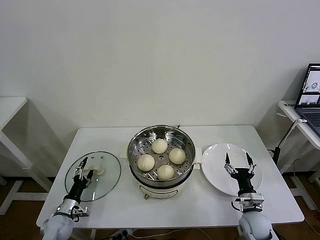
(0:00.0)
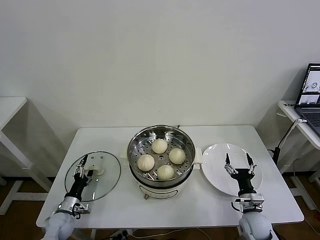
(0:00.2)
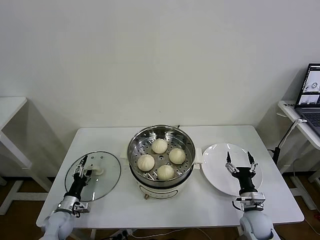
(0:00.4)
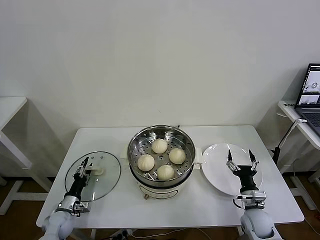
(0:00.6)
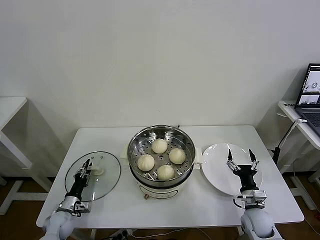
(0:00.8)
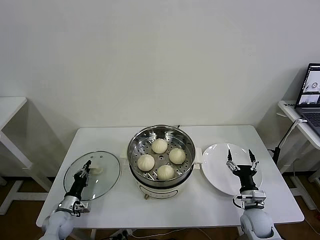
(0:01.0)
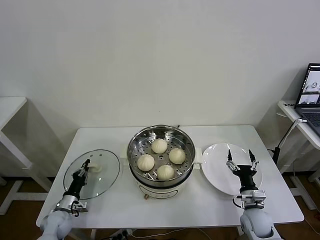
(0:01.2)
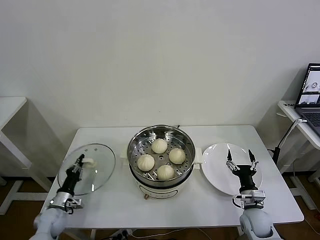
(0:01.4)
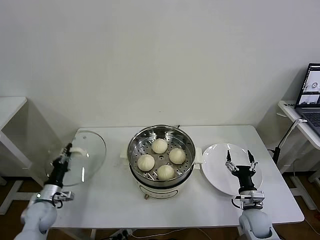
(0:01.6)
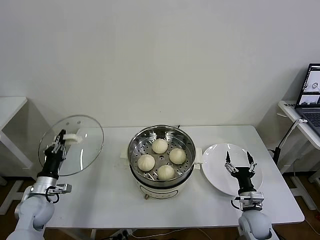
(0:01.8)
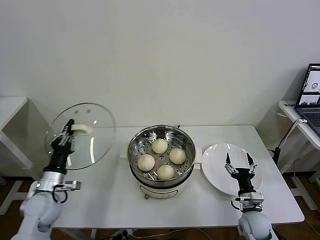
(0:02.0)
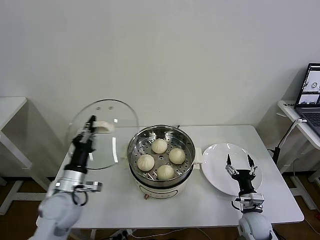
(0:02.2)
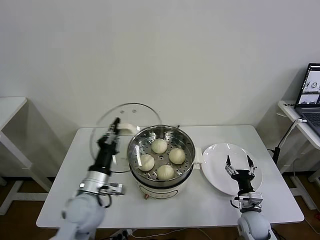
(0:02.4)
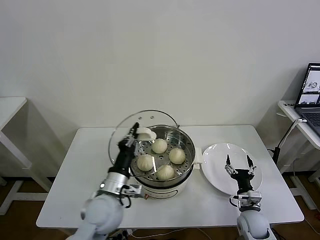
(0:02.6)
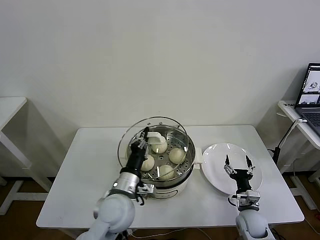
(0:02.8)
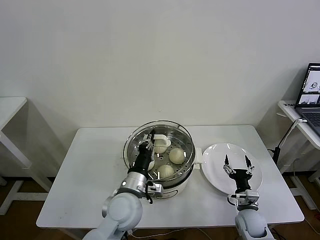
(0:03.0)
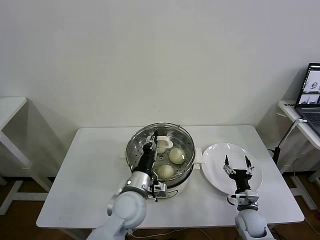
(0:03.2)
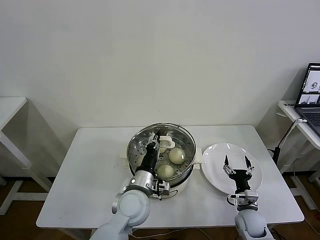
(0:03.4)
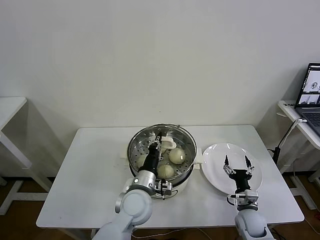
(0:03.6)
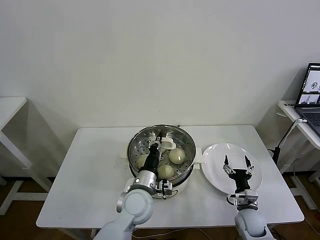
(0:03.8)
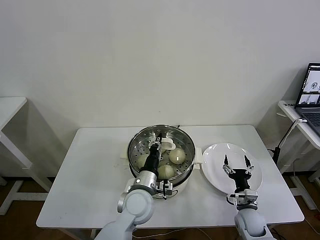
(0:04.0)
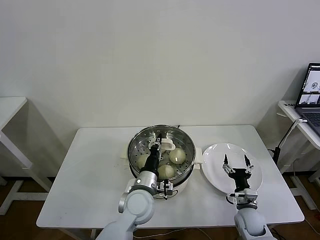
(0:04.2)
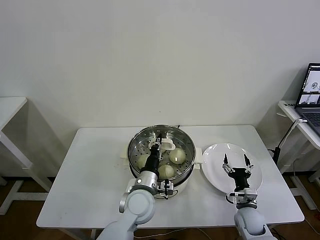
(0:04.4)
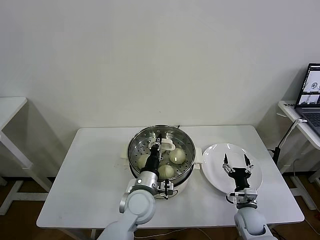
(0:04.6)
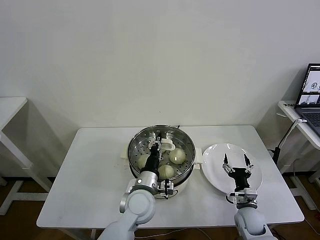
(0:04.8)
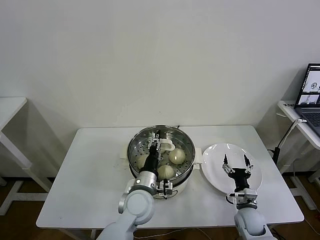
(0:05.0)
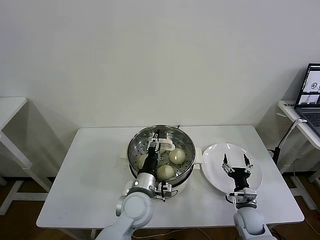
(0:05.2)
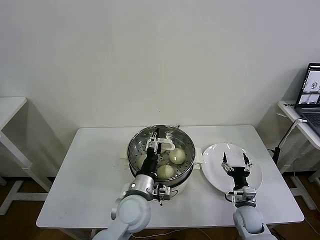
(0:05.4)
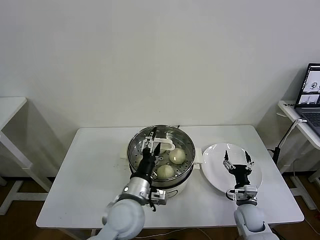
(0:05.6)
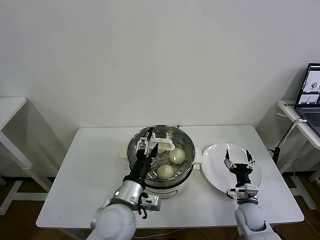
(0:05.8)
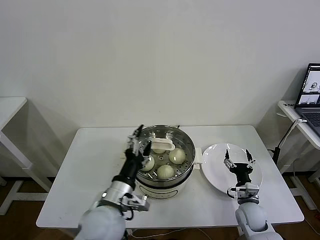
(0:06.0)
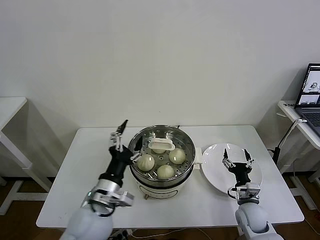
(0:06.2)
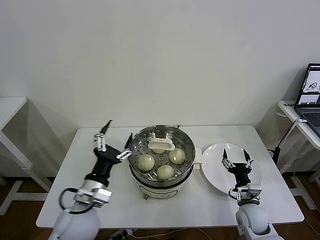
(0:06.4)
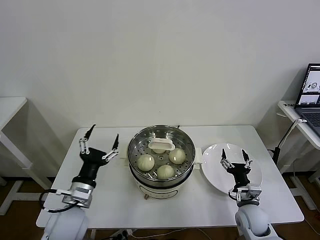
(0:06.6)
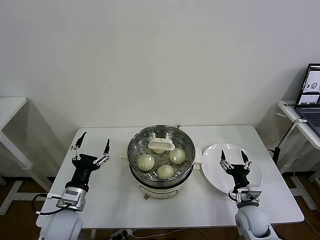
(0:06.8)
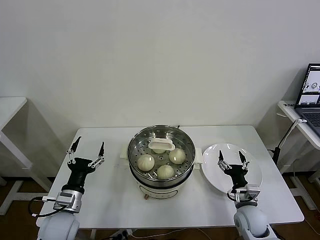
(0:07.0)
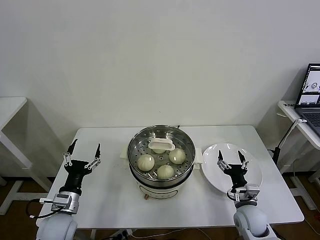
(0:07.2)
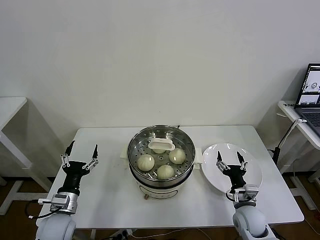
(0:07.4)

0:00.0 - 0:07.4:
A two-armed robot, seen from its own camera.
Task of the whole recording: take steamed baozi put them in steamer then cover it.
Step, 0:01.2 - 0:04.8: Place the pot lid on the steamer with left gripper.
0:00.0 - 0:01.4: The left gripper closes up.
0:01.4 - 0:03.0: The left gripper shifts about 35 cm to the right and upward.
0:03.0 - 0:04.4: The left gripper moves approximately 5 cm.
0:04.4 - 0:06.0: The left gripper travels upward, backward and to the left by about 10 cm, and opens.
0:06.0 - 0:07.4: The left gripper goes roughly 20 cm to the left and downward.

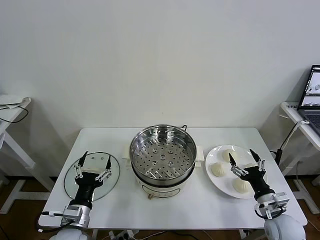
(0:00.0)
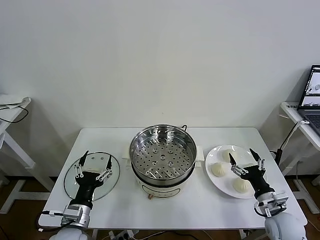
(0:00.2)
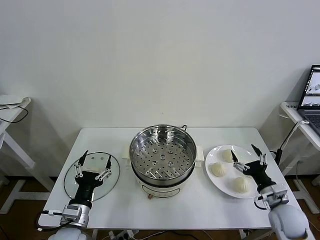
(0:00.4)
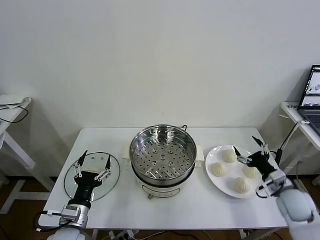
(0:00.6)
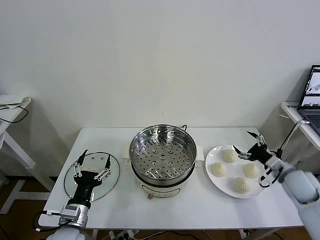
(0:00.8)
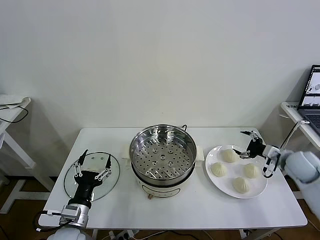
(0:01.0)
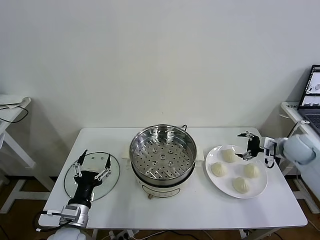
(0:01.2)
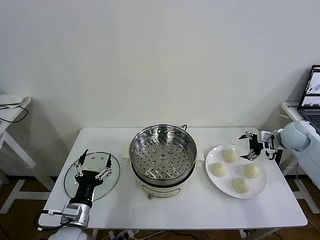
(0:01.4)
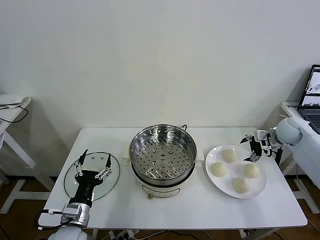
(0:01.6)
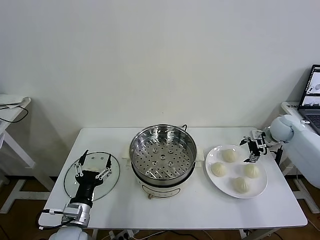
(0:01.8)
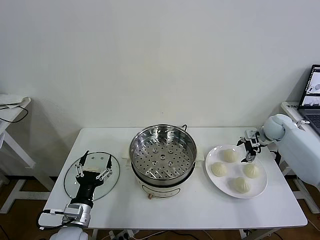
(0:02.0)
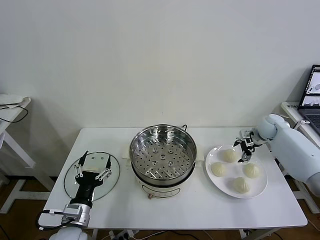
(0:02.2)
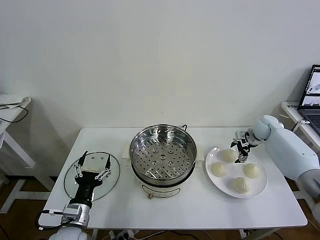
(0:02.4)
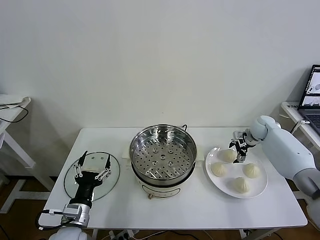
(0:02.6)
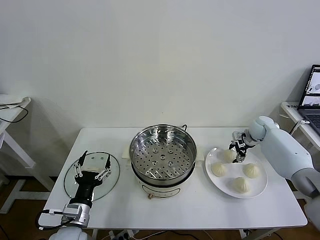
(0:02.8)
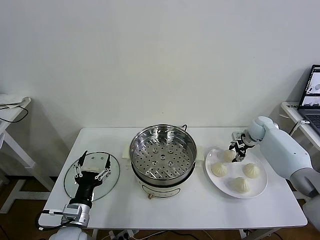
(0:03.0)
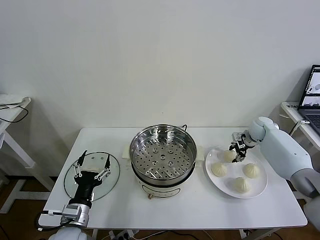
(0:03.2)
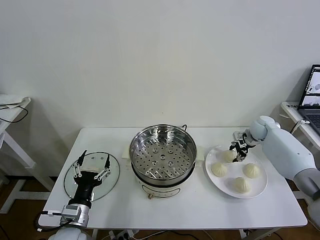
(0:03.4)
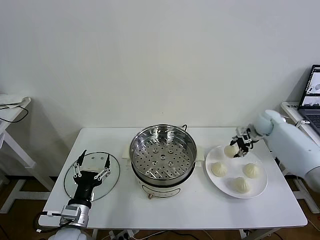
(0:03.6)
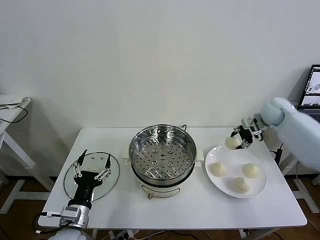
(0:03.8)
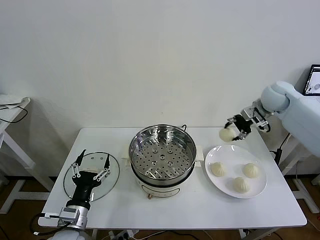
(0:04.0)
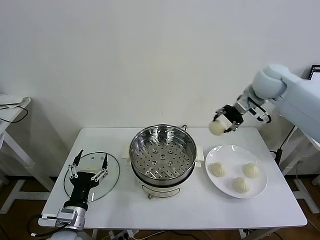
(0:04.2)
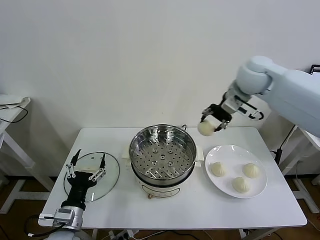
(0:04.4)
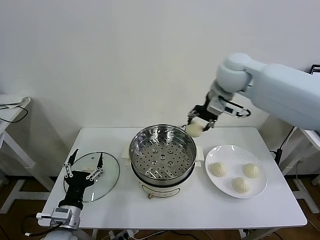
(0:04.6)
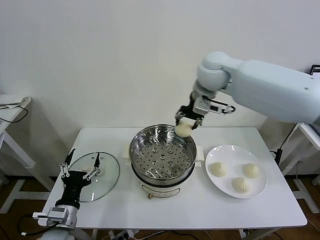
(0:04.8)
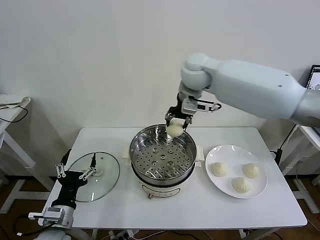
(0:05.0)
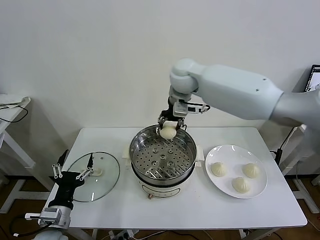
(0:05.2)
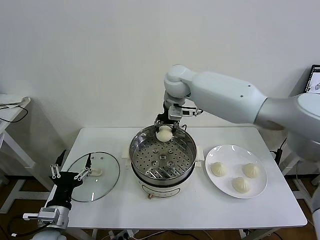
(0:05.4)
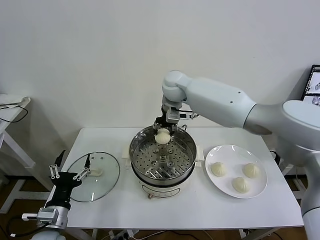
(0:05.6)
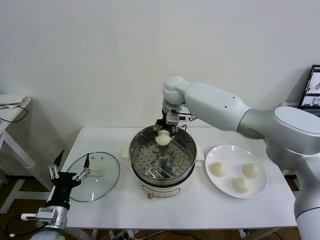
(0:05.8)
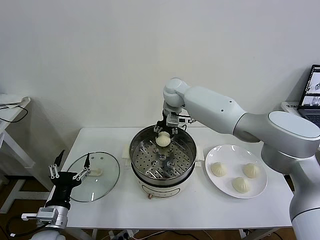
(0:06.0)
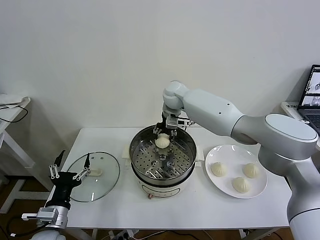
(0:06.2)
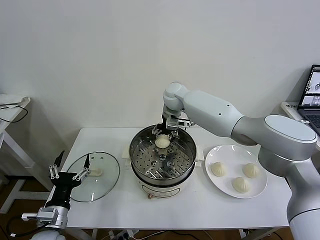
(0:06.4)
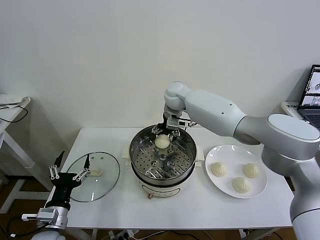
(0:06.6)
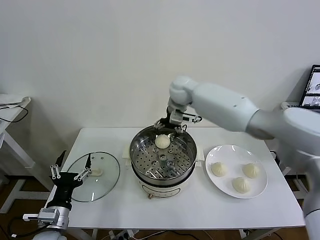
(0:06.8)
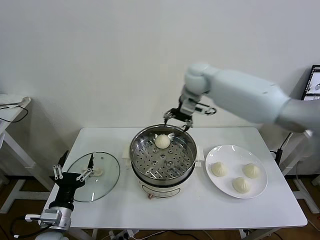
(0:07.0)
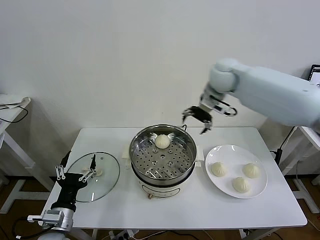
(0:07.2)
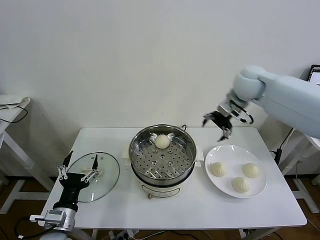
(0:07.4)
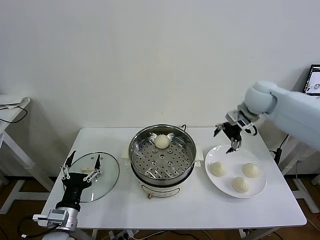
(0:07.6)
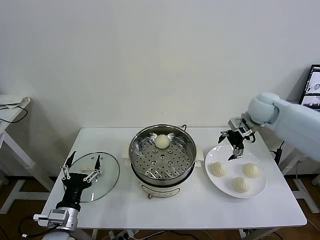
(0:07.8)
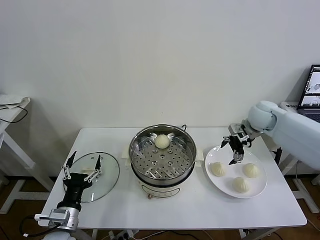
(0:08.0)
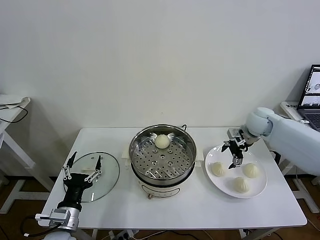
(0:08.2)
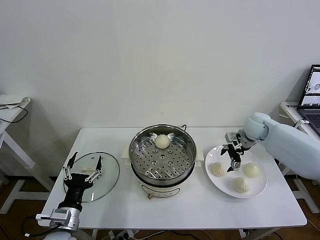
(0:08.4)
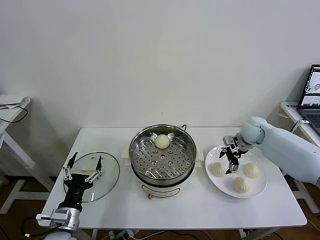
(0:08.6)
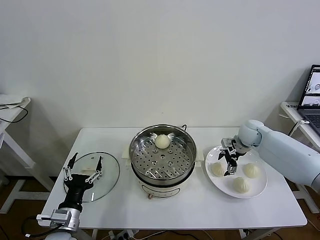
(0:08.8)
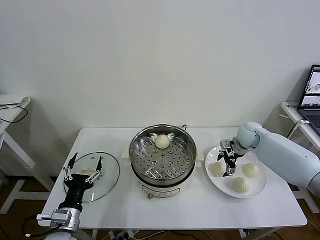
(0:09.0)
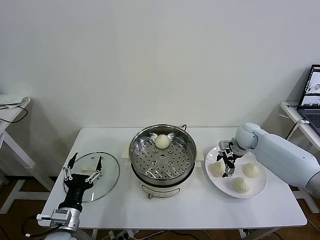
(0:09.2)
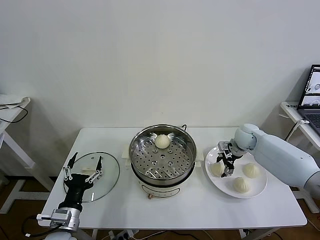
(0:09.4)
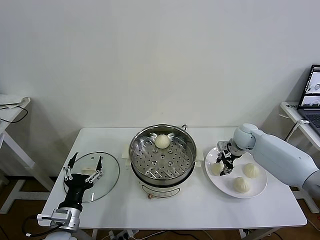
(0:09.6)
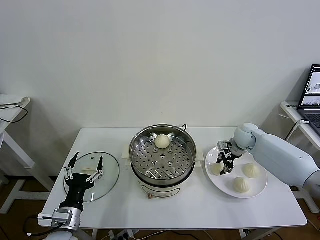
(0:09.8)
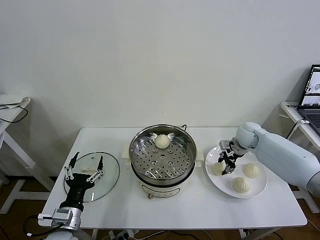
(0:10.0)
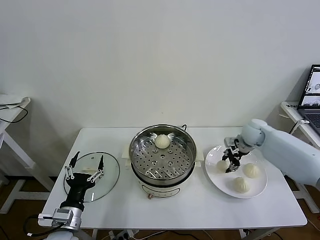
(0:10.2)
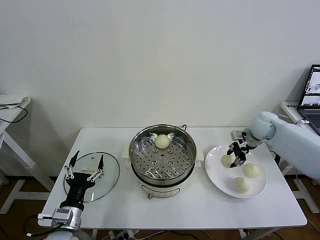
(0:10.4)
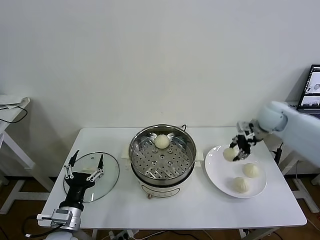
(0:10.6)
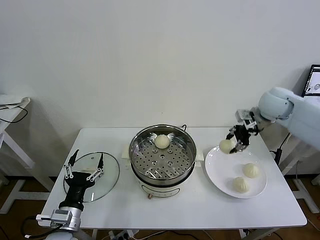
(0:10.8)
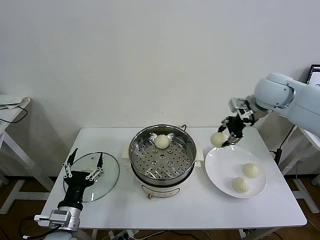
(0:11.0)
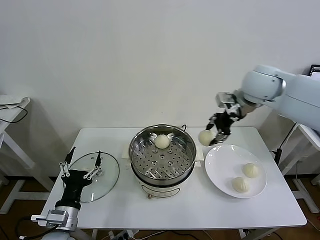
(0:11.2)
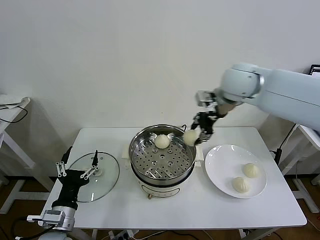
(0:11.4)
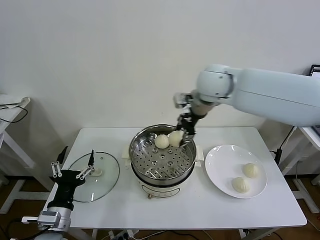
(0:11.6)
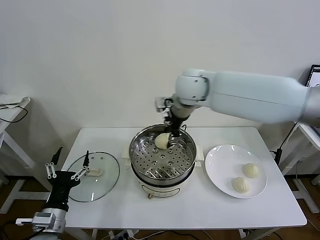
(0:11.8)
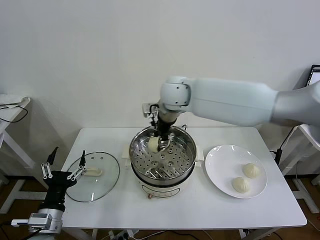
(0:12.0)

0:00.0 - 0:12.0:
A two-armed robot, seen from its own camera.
Task of the whole recording: take steamed baozi put them in steamer then cover it.
Step, 0:00.0 - 0:03.0: Grasp the baozi in the plate with right gripper.
Step, 0:03.2 - 0:06.6: Place the baozi on the steamer with right gripper.
Step, 0:06.8 - 0:09.6: Grasp the baozi in the plate with right gripper.
0:01.6 - 0:03.0: The right gripper travels downward and forward by some 10 cm, and closes its fingers.
0:03.0 - 0:04.4: The right gripper travels upward and to the left by some 35 cm.
0:04.4 - 0:06.0: The right gripper travels to the left, downward and forward by some 25 cm.
0:06.0 - 0:07.6: The right gripper heads to the right, covering about 25 cm, and opens.
0:07.6 - 0:09.0: The right gripper heads downward, covering some 15 cm.
0:09.0 - 0:10.4: The right gripper goes about 10 cm upward, and closes.
0:10.4 - 0:12.0: The right gripper moves to the left, about 35 cm.

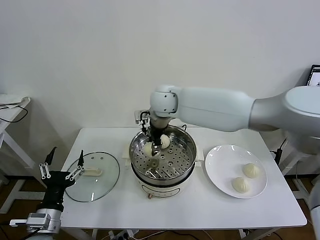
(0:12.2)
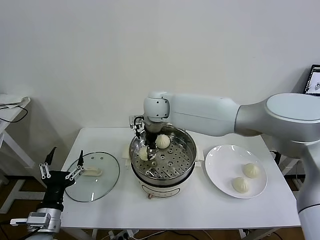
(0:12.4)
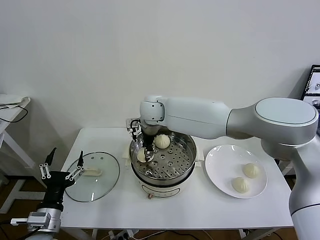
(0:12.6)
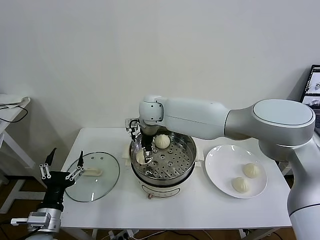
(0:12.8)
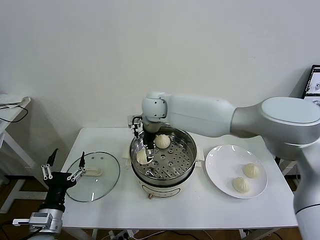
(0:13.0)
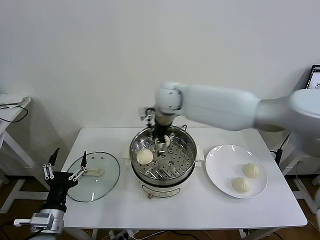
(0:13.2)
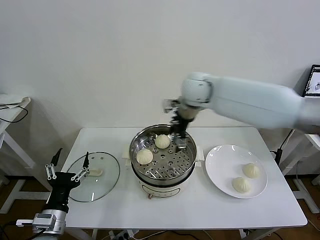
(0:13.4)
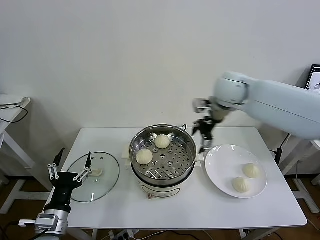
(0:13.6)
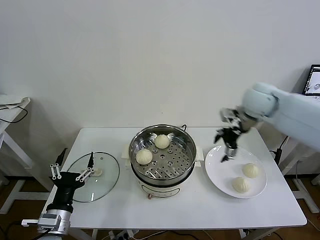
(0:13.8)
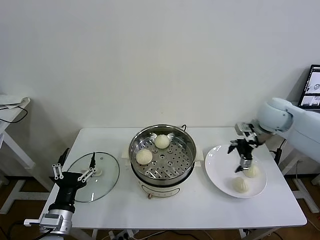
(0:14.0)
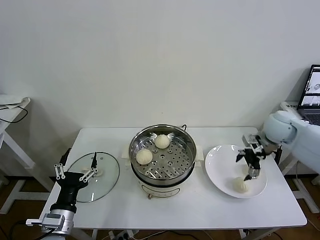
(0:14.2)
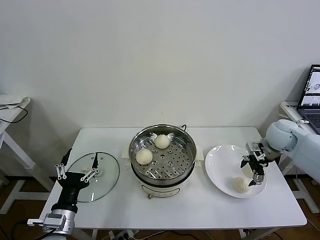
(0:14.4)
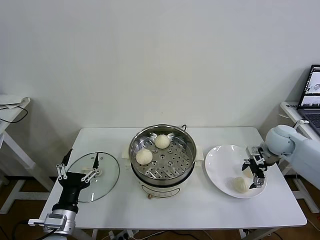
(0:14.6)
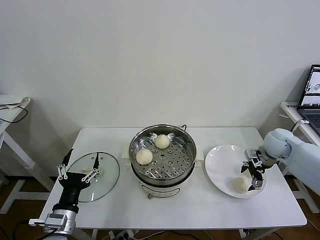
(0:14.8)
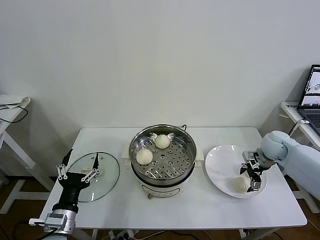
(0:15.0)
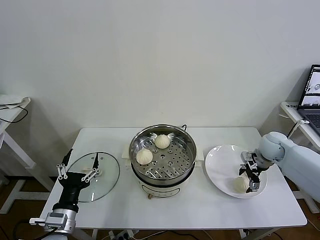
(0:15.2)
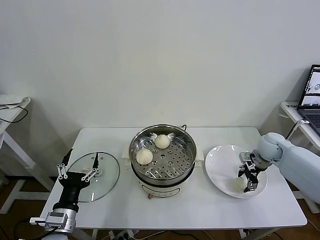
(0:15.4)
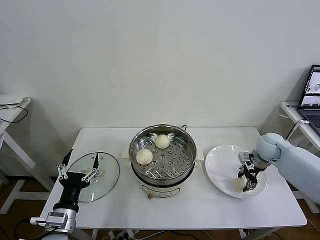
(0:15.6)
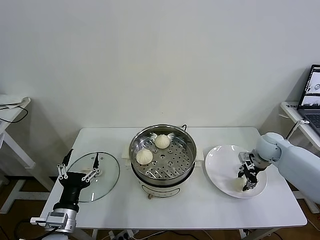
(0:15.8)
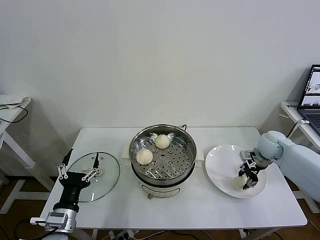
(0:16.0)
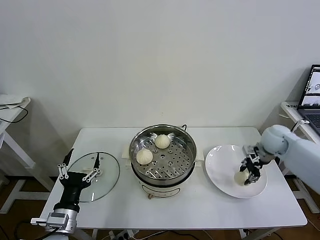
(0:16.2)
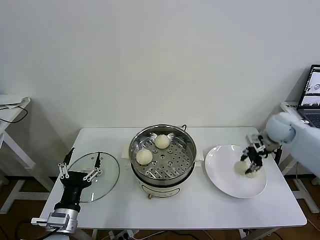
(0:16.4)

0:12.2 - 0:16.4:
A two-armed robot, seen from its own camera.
Task of the whole recording: take steamed baozi put them in steamer then cover it.
Step, 0:13.2 - 0:15.6: Grasp the baozi in the plate with right gripper.
0:12.2 - 0:13.6: The right gripper is displaced to the right by about 25 cm, and opens up.
0:13.6 - 0:15.0: The right gripper heads downward and to the right, covering about 25 cm.
0:15.0 - 0:16.4: The right gripper heads upward, covering roughly 10 cm, and closes its fingers.
